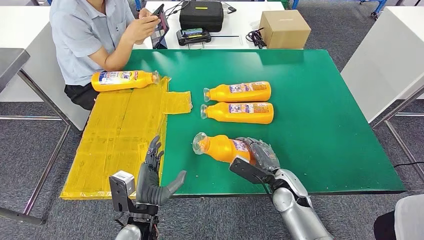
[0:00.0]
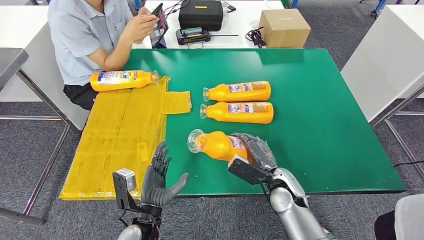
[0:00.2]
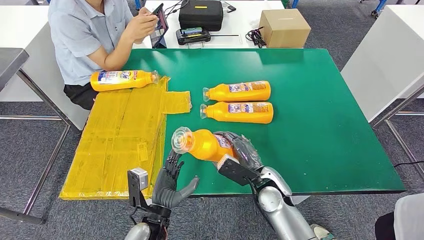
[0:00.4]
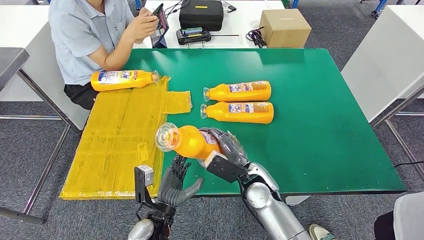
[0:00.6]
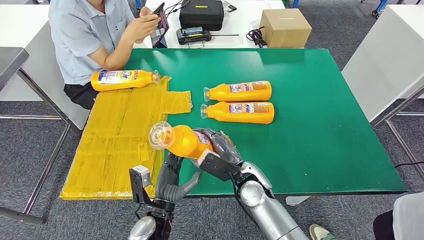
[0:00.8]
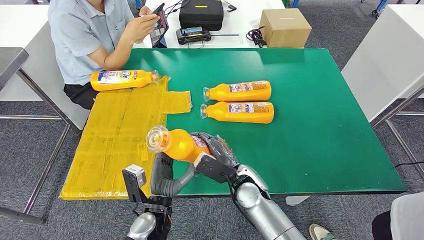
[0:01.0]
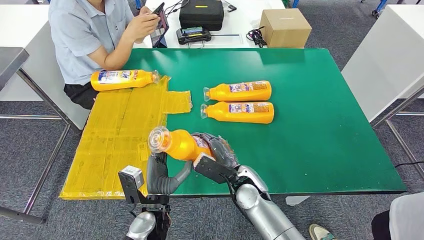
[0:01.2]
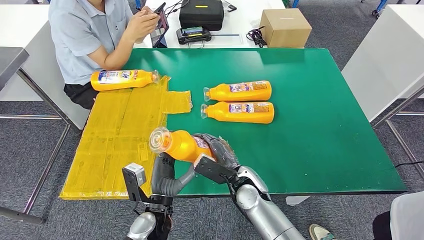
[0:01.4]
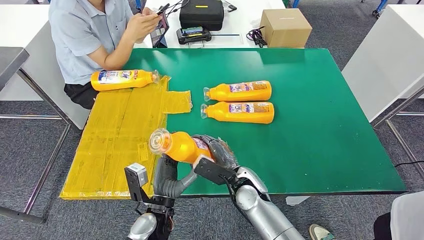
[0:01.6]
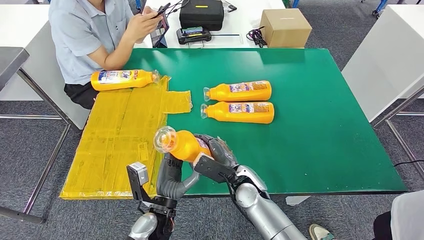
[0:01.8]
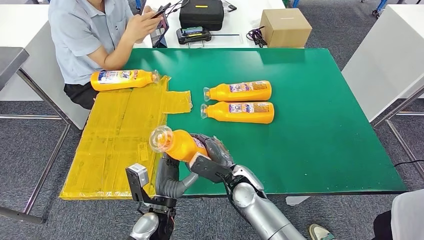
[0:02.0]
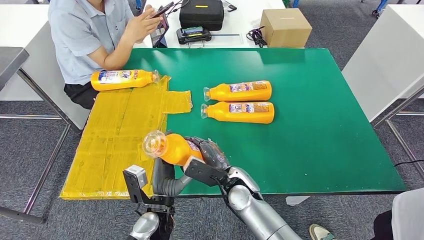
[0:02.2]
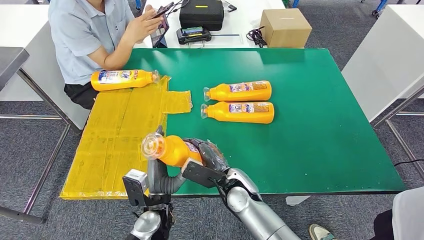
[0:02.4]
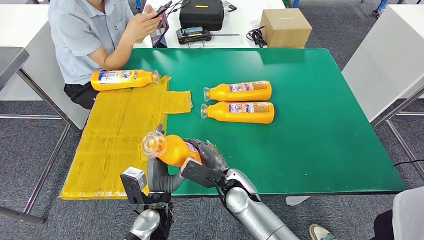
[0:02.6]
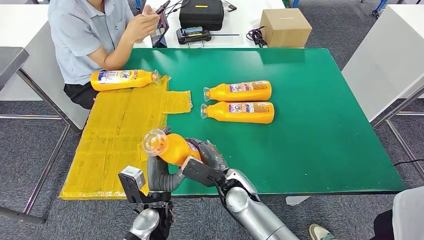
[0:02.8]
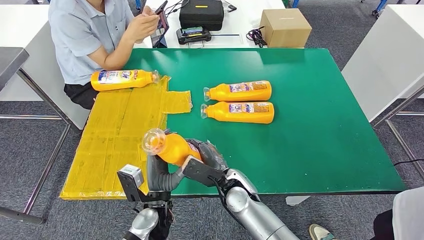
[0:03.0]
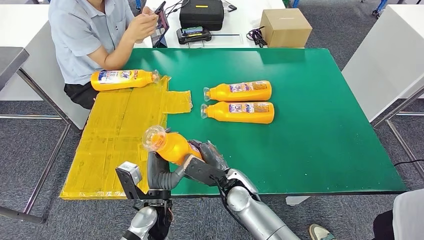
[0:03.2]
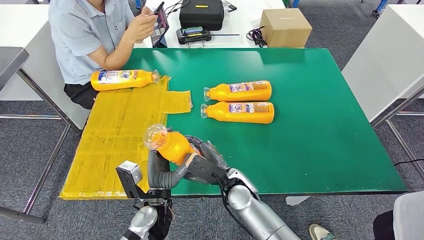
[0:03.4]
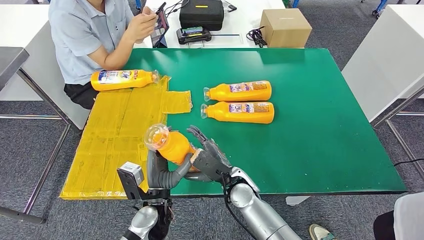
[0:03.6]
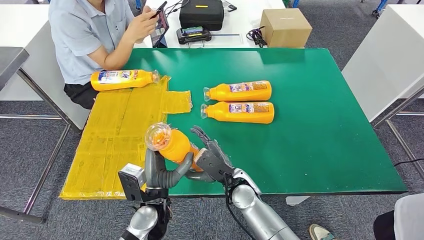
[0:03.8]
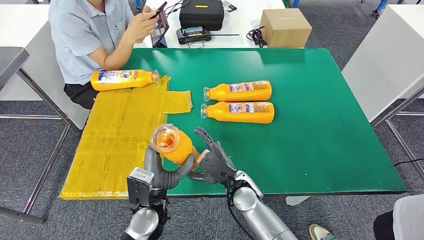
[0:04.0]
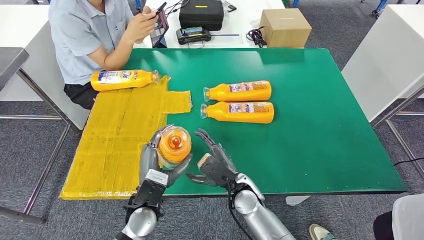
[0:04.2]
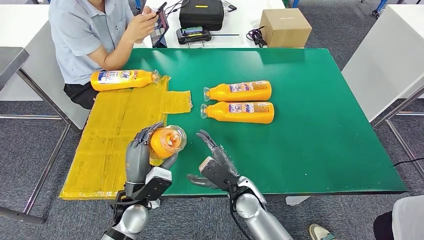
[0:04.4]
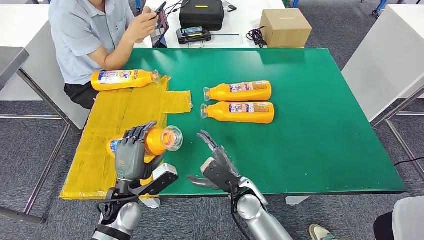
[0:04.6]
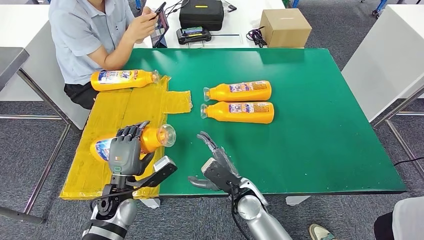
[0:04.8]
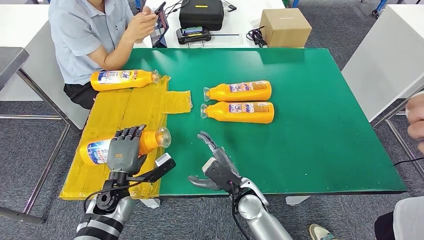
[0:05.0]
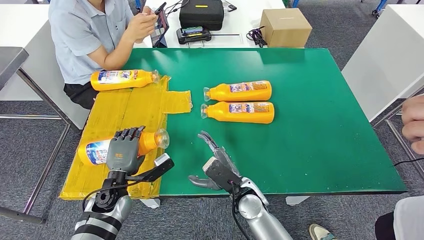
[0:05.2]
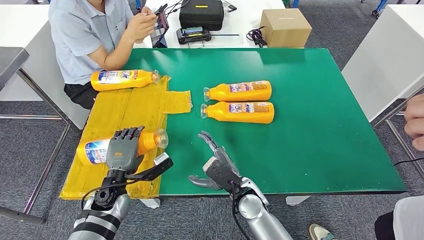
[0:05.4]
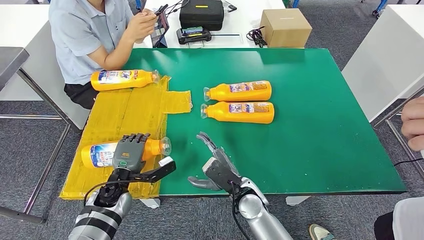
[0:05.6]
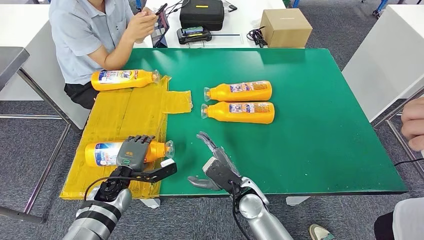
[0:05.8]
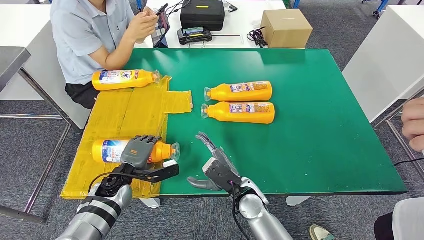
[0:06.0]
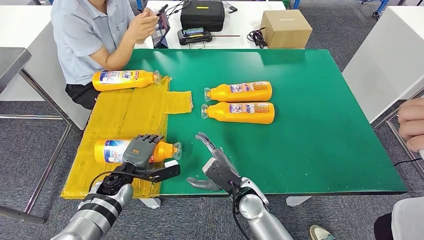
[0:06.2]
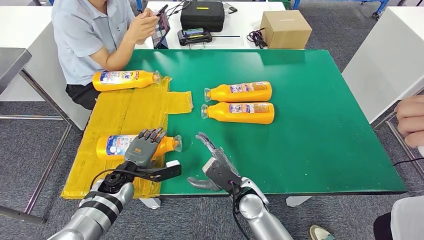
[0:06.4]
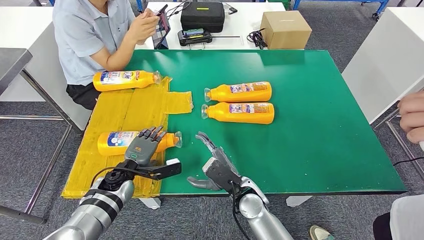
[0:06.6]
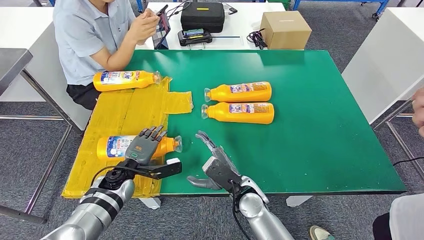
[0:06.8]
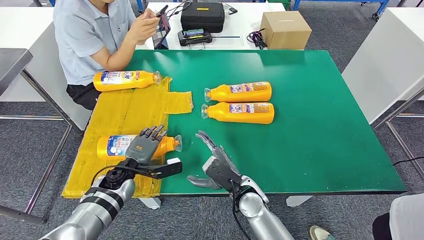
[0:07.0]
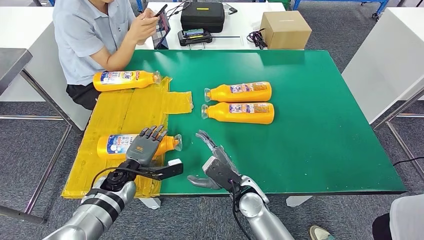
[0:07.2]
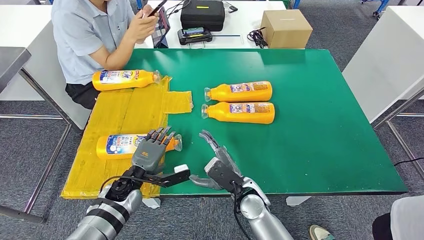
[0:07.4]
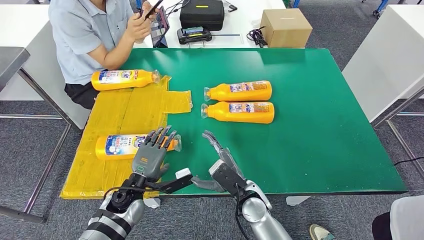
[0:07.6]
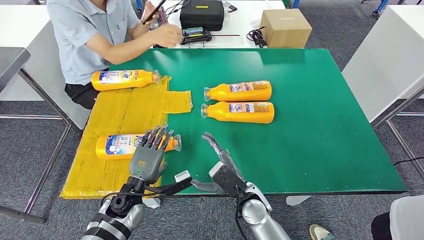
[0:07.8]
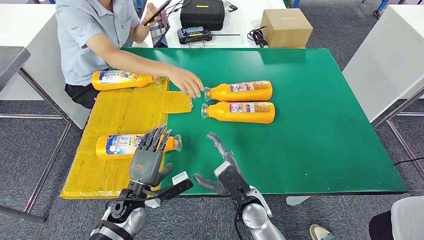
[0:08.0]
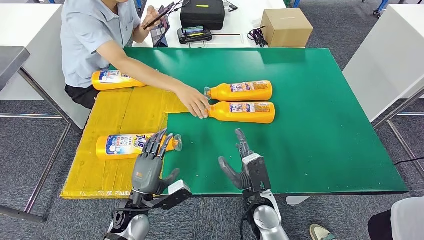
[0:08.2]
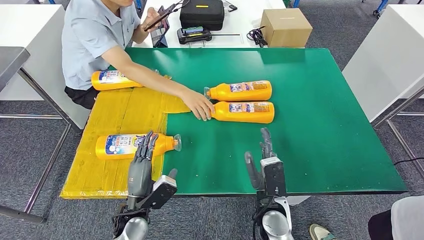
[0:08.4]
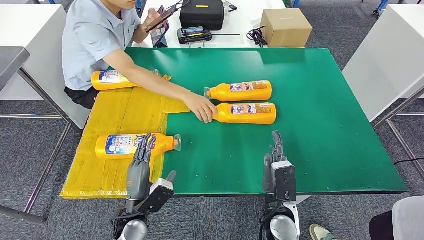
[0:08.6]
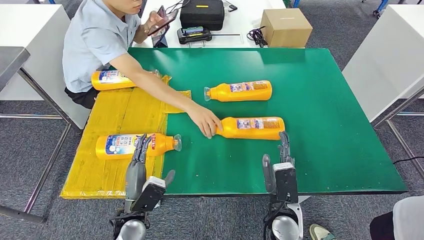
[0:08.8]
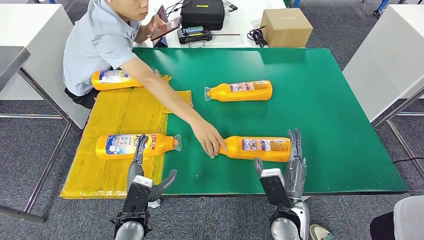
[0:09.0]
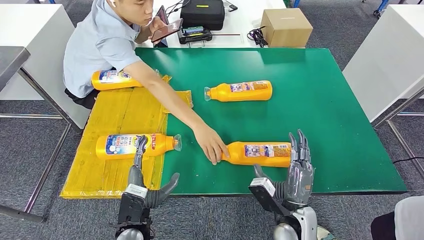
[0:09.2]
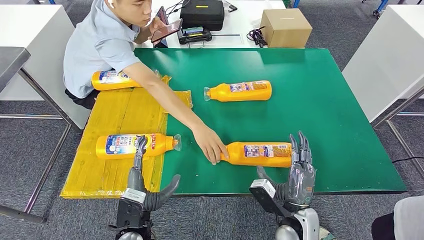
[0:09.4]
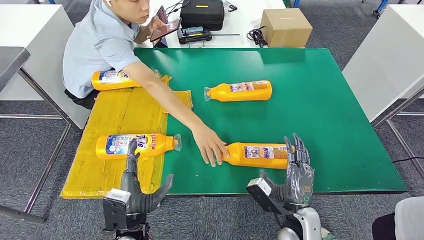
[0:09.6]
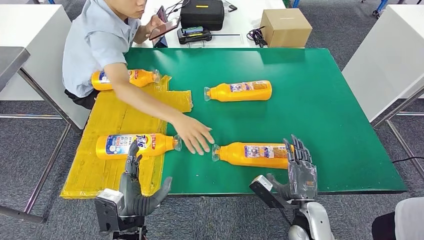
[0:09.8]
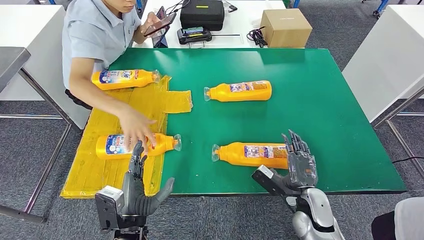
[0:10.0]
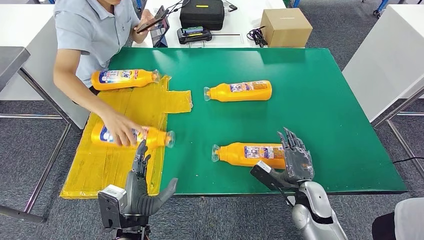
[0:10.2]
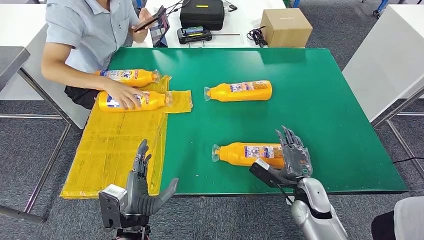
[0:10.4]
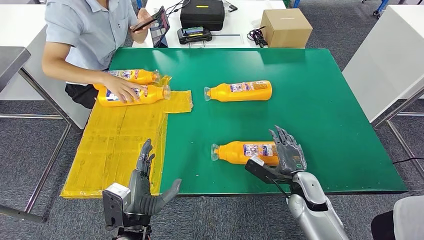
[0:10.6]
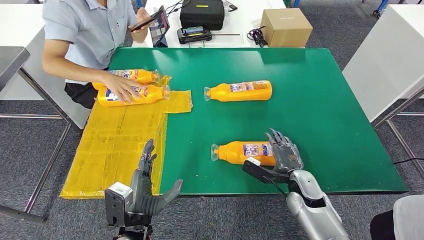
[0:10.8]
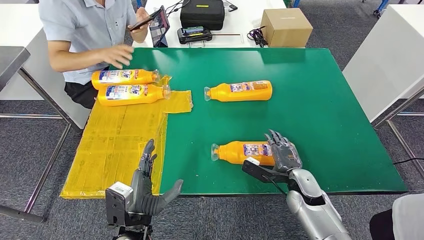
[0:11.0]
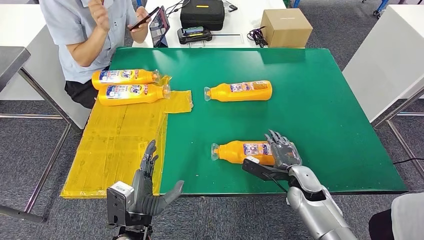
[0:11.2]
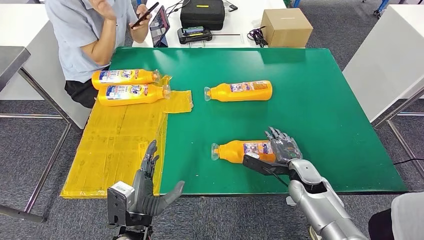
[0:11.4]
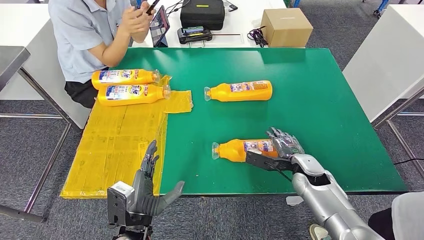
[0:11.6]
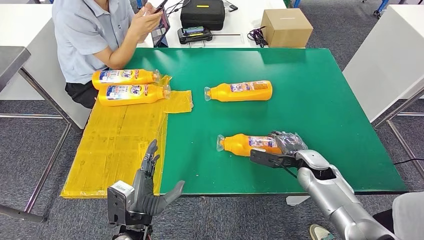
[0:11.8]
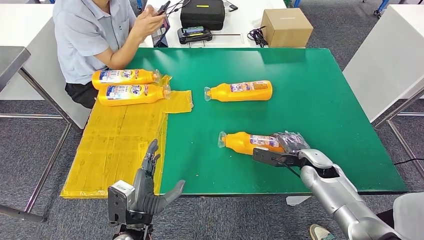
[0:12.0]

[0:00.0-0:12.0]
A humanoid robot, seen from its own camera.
Step, 1.0 to 5.8 s: Flip the fast-moving consumer goods bottle to the front side.
0.0 to 1.6 s: The right hand heads to the left, covering about 10 cm.
1.6 to 3.0 s: The hands make only small movements.
3.0 to 4.4 s: The left hand travels to the left by approximately 5 cm.
4.4 to 6.0 s: The left hand heads forward and to the left, covering approximately 10 cm.
6.0 to 7.6 s: The left hand moves roughly 5 cm.
9.0 to 10.4 s: The left hand moves about 5 cm; the right hand goes about 10 cm to the right and forward.
10.4 to 12.0 s: The right hand heads forward, covering approximately 10 cm.

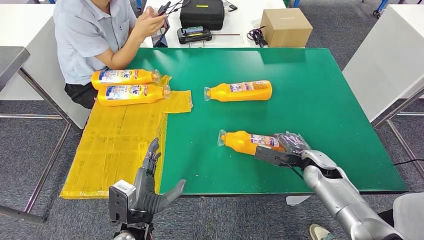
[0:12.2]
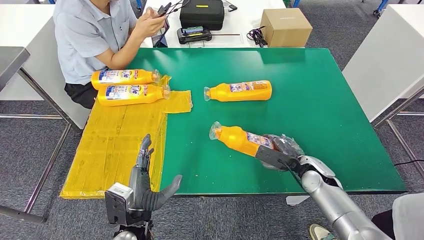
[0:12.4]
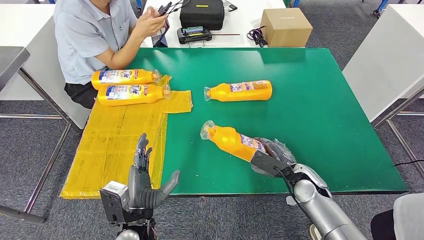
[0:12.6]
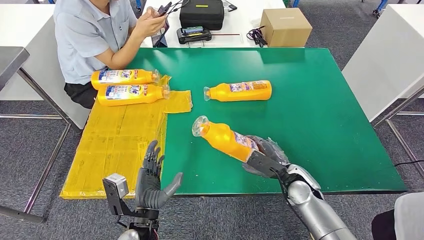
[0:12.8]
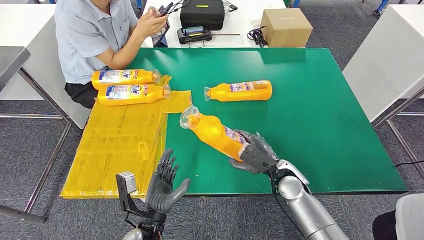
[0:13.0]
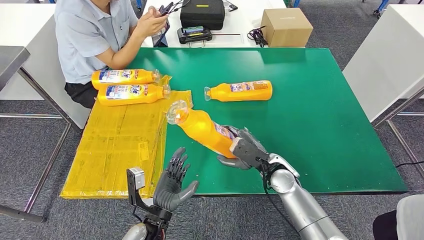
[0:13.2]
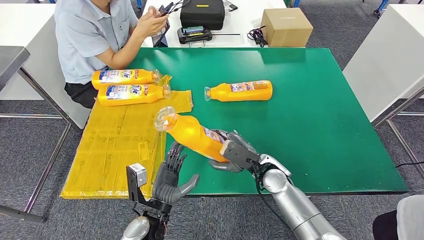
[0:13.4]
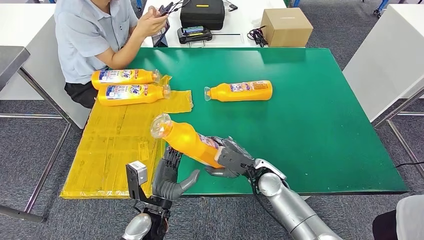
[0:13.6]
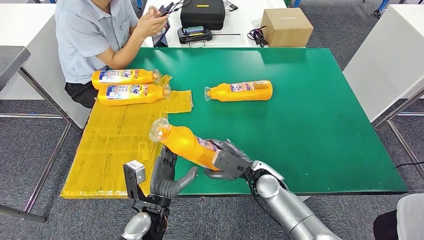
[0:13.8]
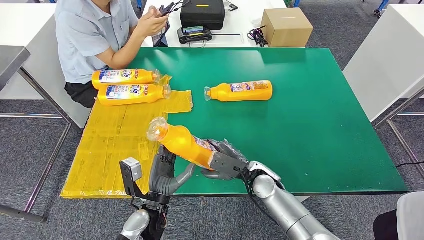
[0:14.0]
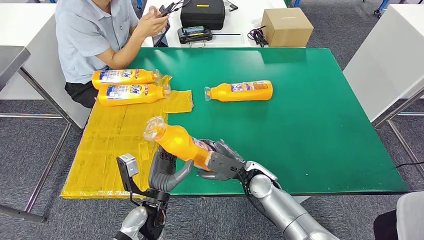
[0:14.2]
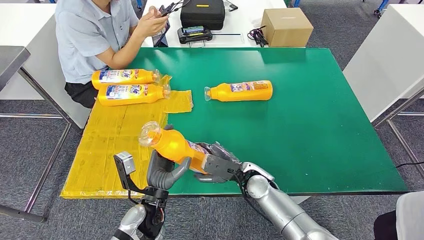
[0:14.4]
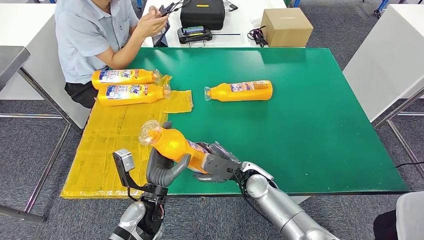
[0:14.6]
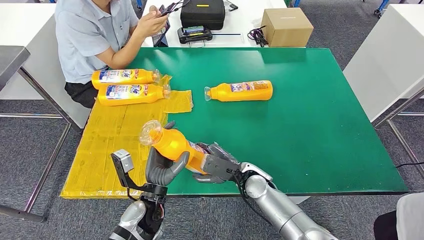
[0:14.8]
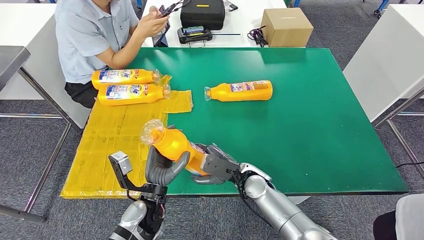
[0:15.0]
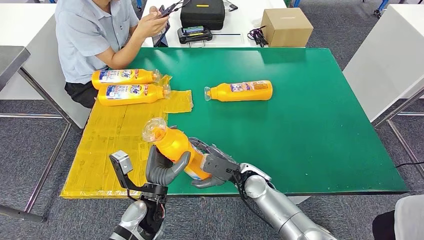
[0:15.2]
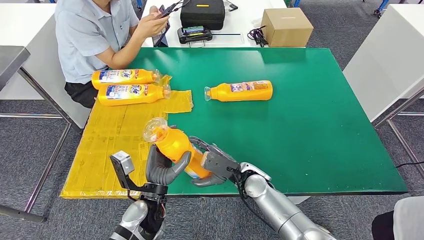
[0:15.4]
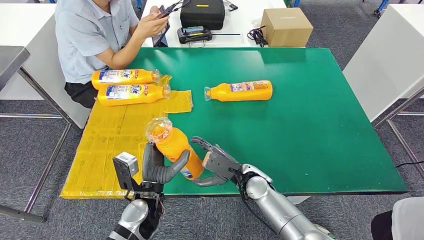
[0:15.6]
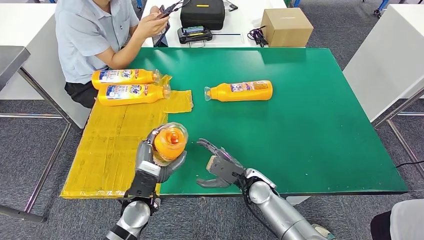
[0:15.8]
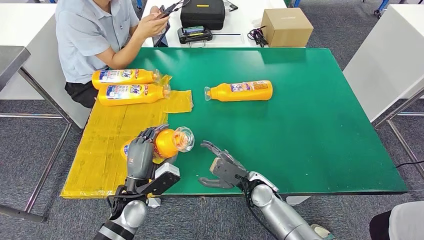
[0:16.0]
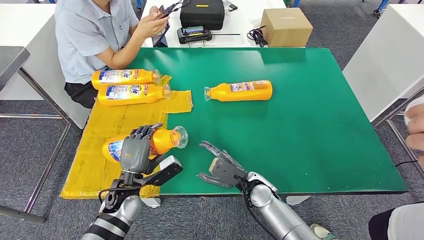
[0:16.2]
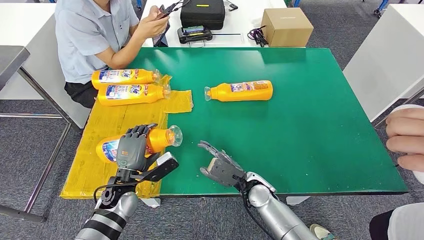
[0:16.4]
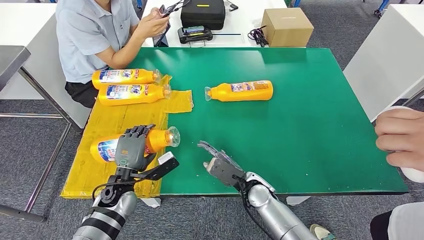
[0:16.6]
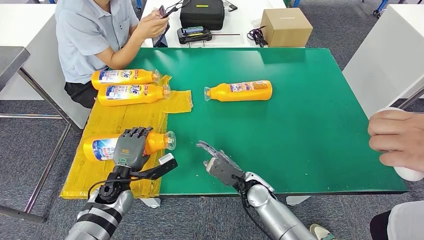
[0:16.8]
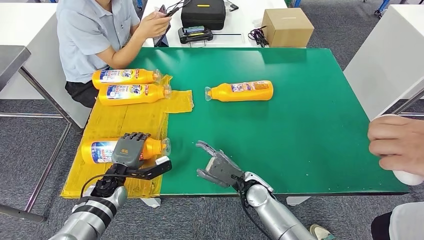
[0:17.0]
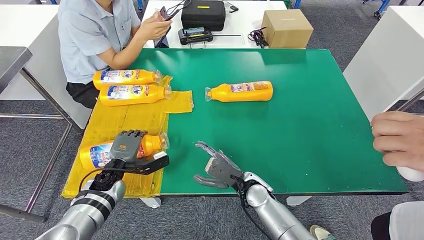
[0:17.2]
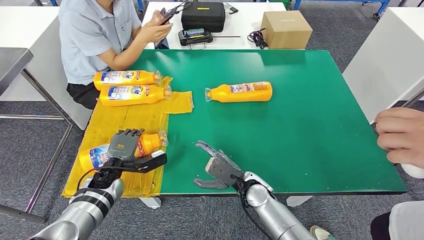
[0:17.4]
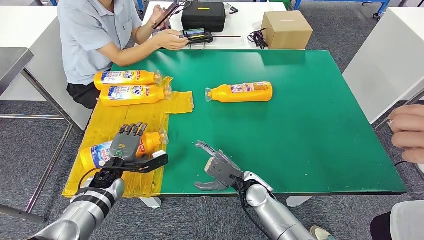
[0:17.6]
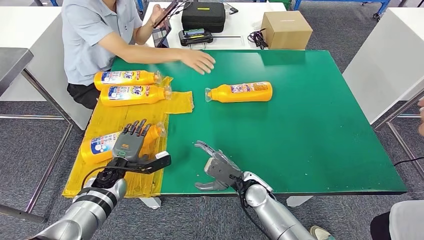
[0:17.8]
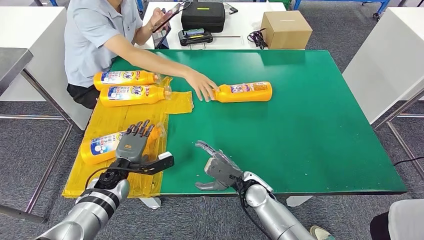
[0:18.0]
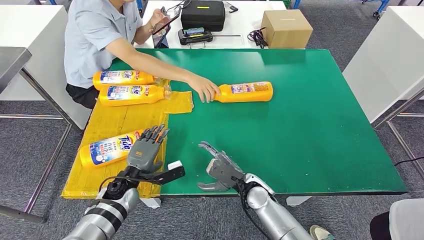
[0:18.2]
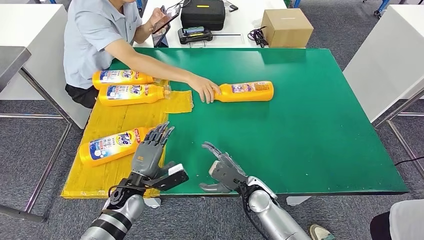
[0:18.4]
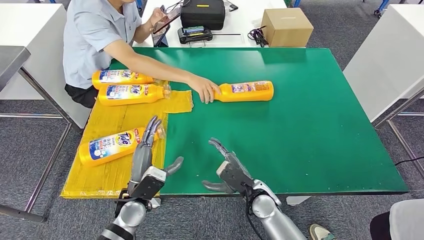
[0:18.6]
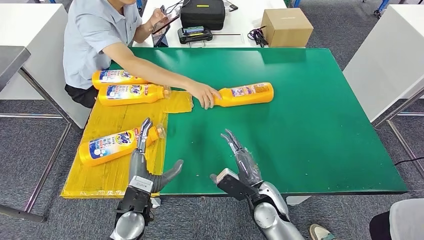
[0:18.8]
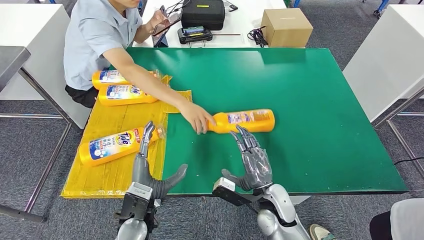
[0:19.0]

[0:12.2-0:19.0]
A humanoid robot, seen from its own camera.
Step, 13.6 to 17.4 s: Flip the fast-moving consumer goods bottle to the front side.
12.2 to 13.6 s: The right hand travels to the left by some 15 cm. The left hand changes place by some 5 cm.
13.6 to 15.0 s: The hands make only small movements.
15.0 to 16.2 s: The left hand shifts roughly 5 cm to the left.
